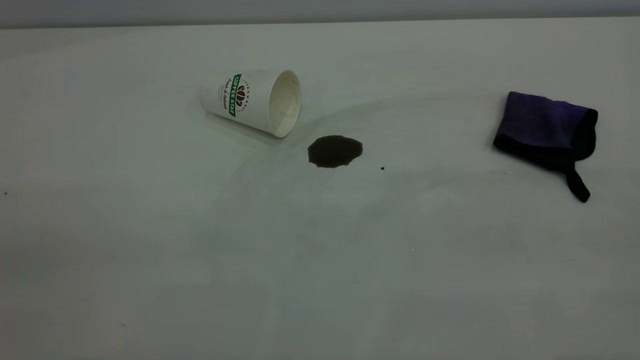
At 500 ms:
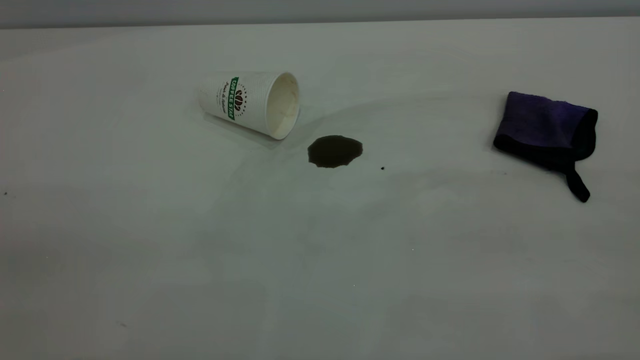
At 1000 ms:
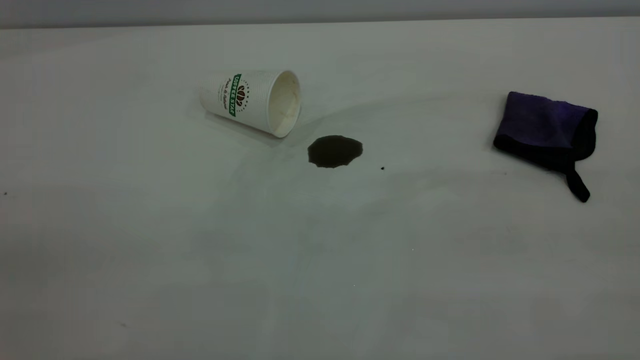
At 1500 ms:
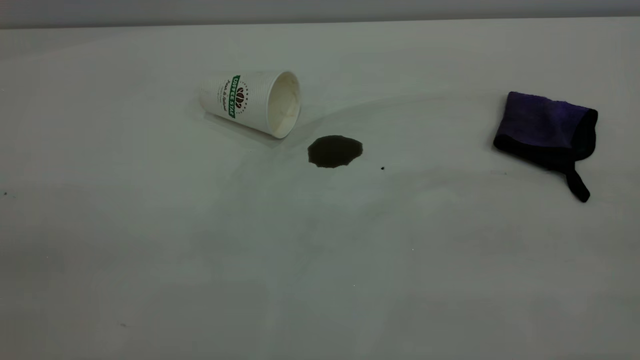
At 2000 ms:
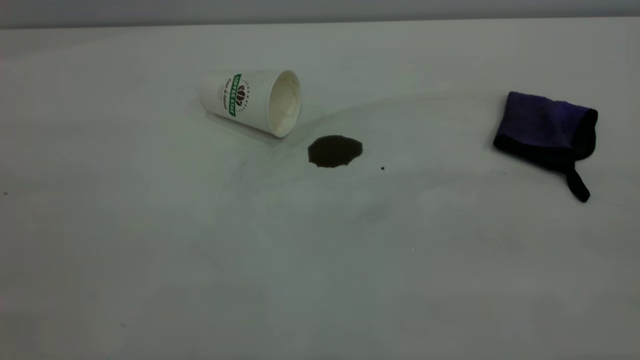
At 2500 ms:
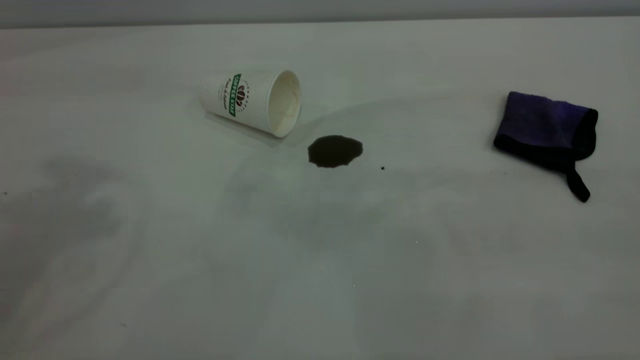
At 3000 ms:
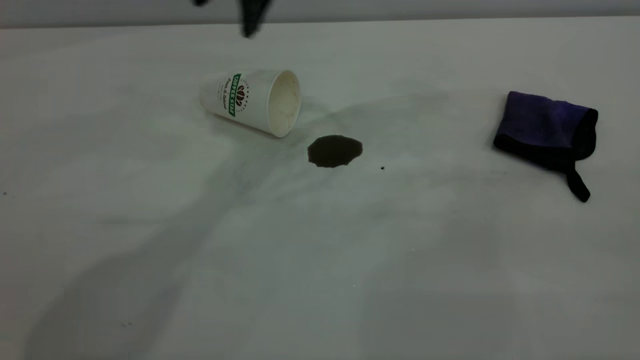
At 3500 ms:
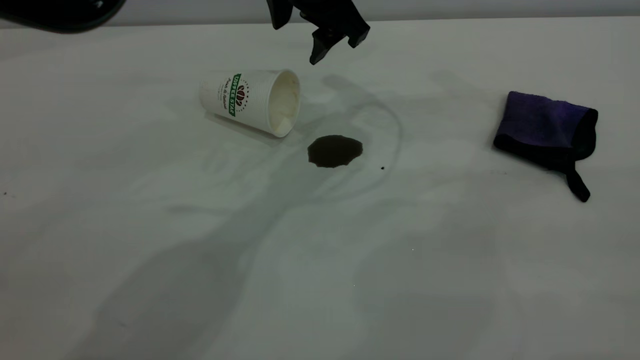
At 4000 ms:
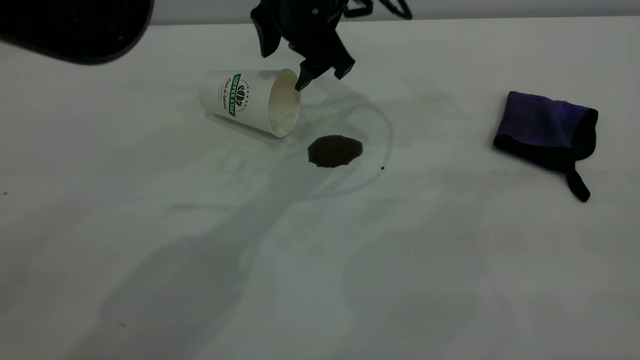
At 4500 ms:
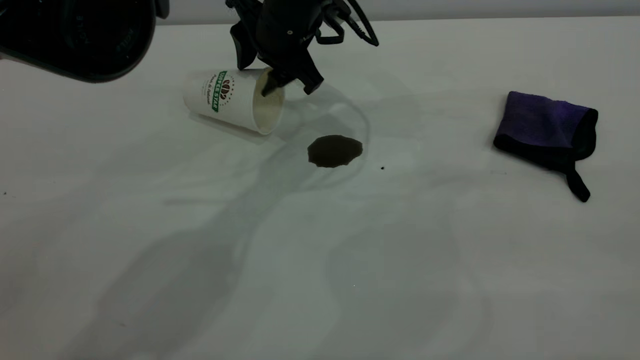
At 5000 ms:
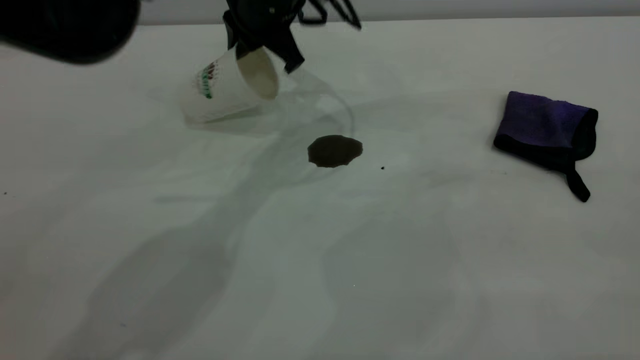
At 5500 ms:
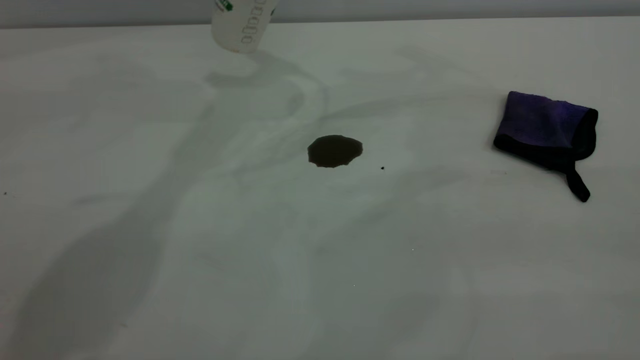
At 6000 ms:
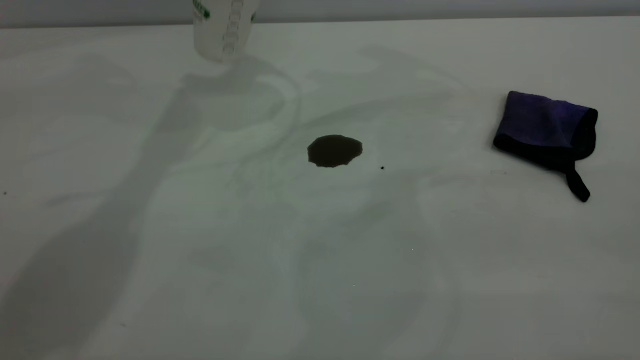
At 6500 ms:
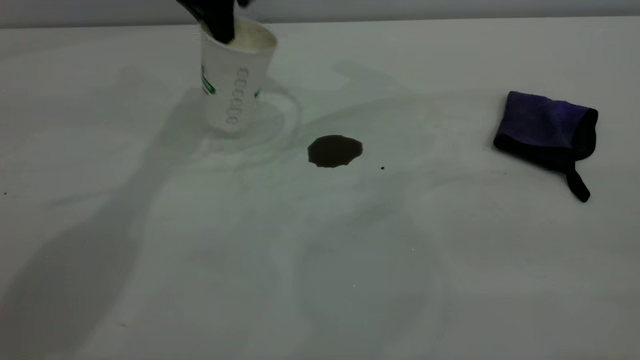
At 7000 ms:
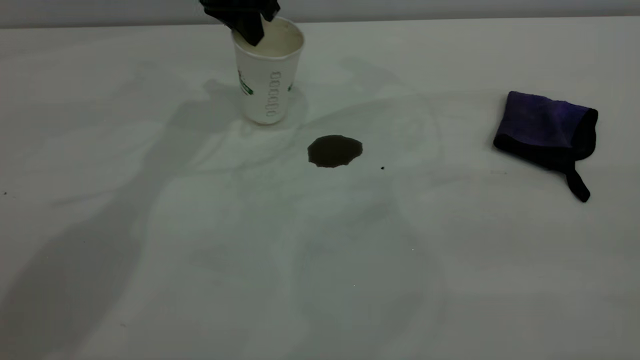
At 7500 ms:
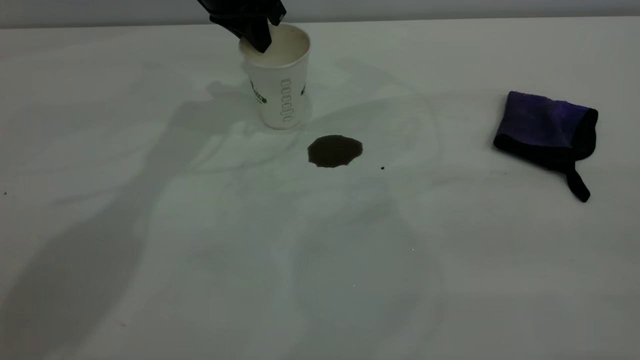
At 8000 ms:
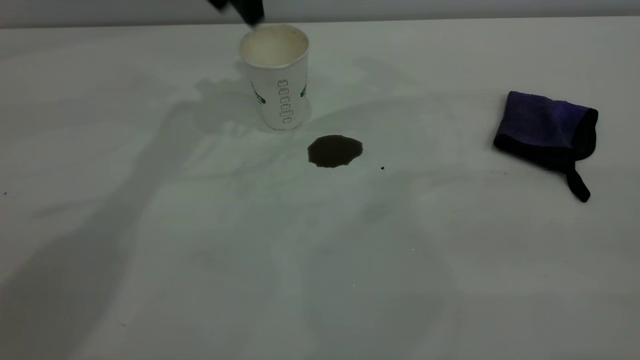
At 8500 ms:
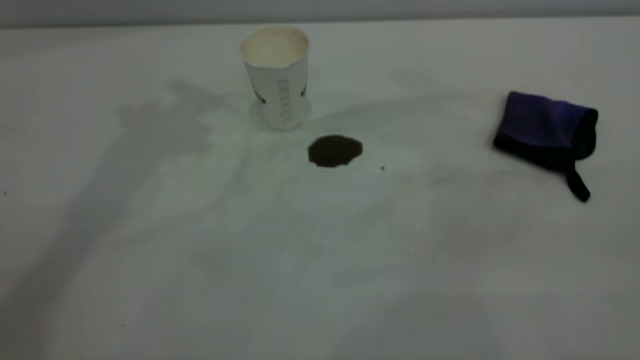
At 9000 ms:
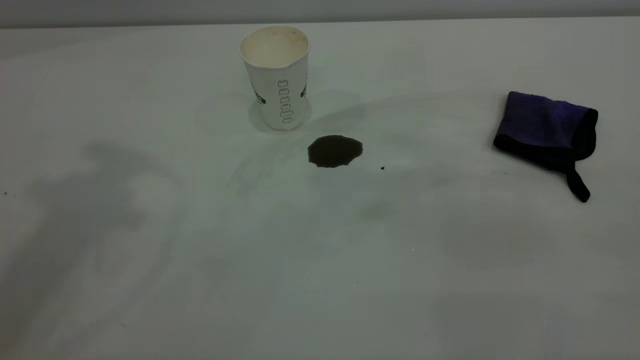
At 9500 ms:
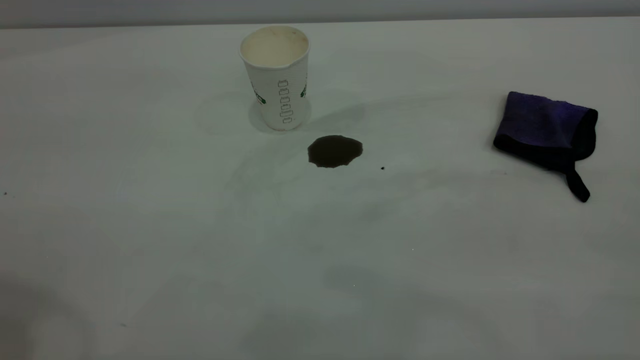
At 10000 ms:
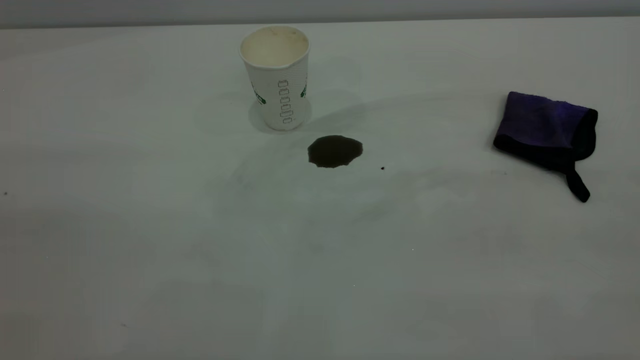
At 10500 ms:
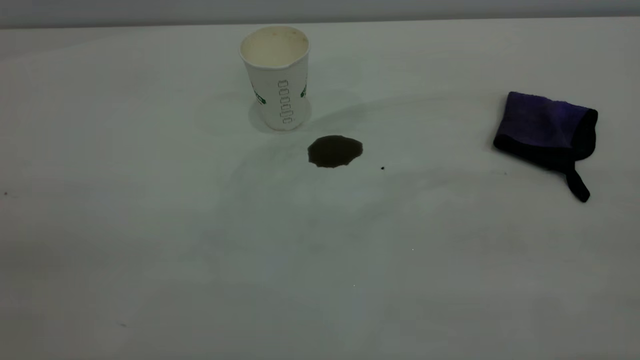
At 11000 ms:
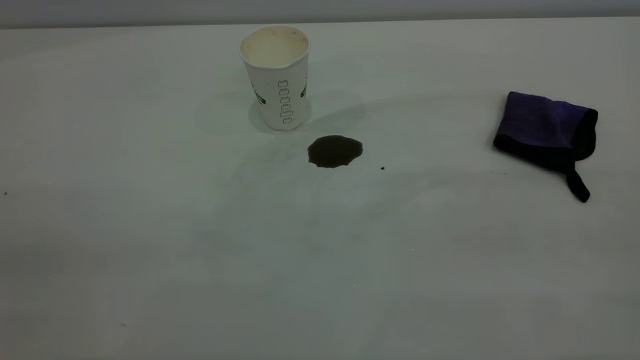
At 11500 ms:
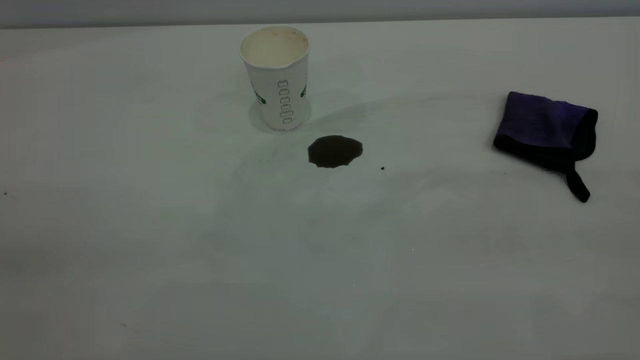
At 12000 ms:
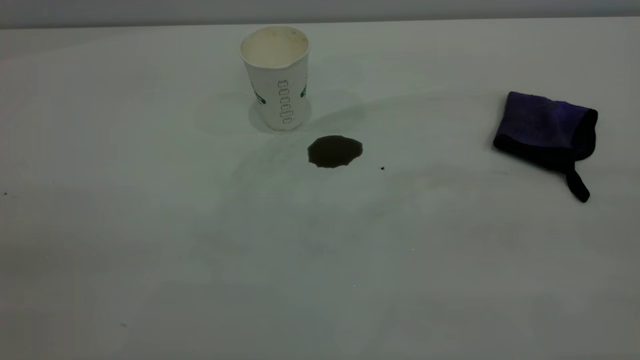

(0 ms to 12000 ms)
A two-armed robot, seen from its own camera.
Task of the whole recording: the left gripper pick up the fallen cup and place it upright, the right gripper grasp the purple rag and wipe the coffee stain on the table, the right gripper put the purple rag back in its original position.
Step, 0 ms - 7500 ms: Stand the paper cup upright.
2000 ms - 4000 ms: The left gripper is displaced forward, to the right and downward by roughly 50 cm.
4000 ms - 6000 ms: The left gripper goes approximately 20 cm upward and to the left, and closes.
6000 ms - 8000 ms: The left gripper goes downward and returns, approximately 10 cm each way, and opens its fingers.

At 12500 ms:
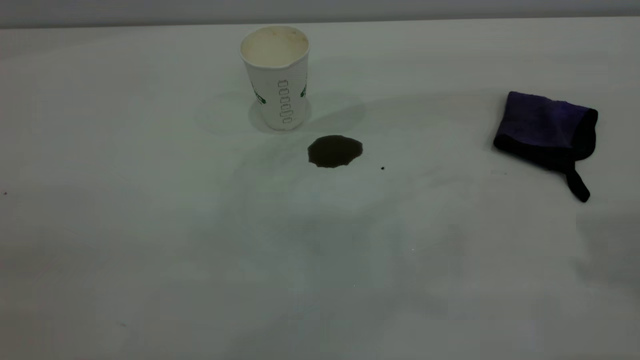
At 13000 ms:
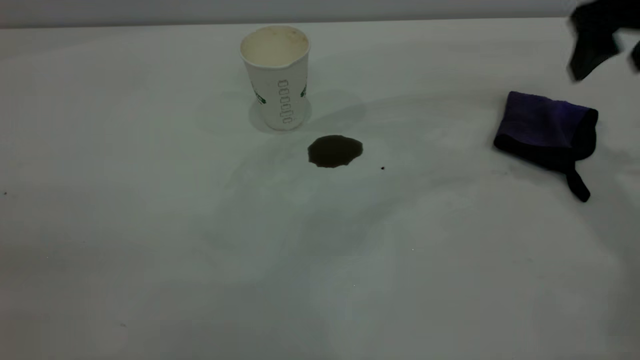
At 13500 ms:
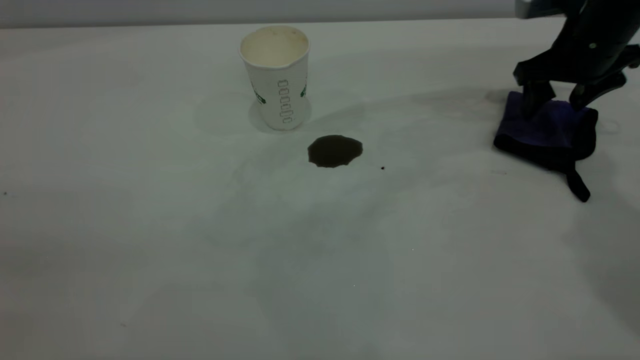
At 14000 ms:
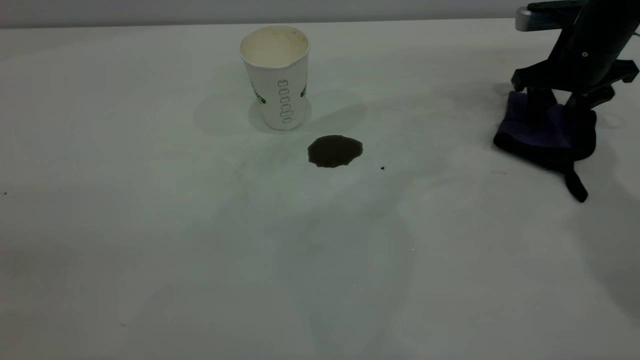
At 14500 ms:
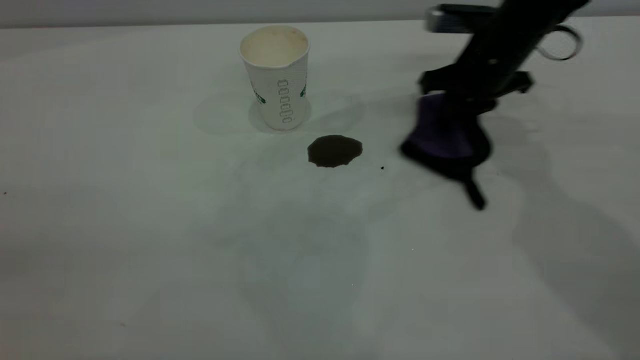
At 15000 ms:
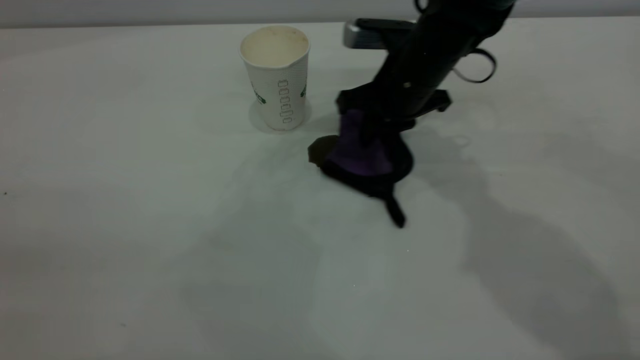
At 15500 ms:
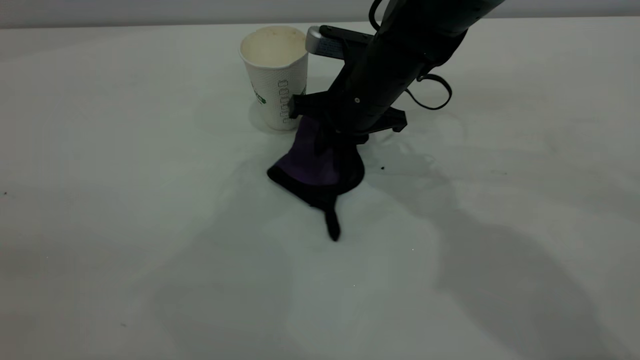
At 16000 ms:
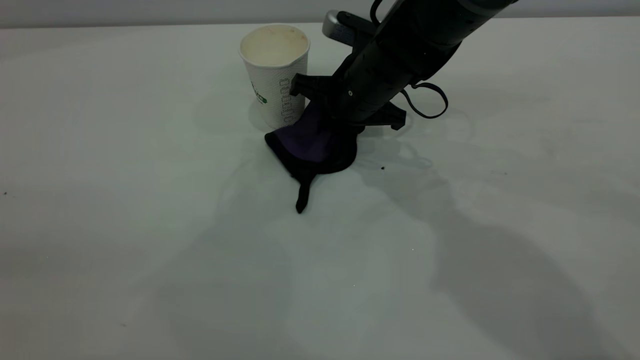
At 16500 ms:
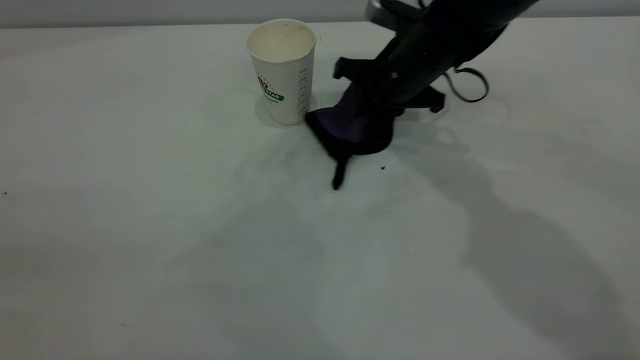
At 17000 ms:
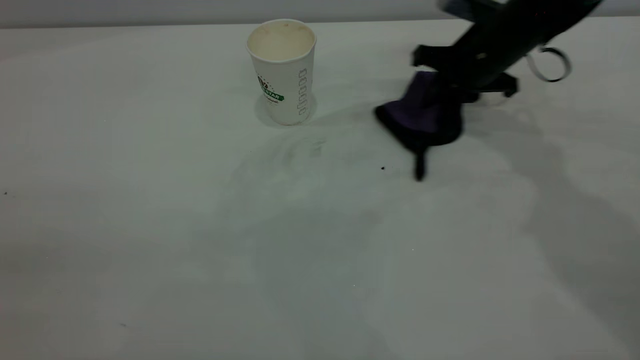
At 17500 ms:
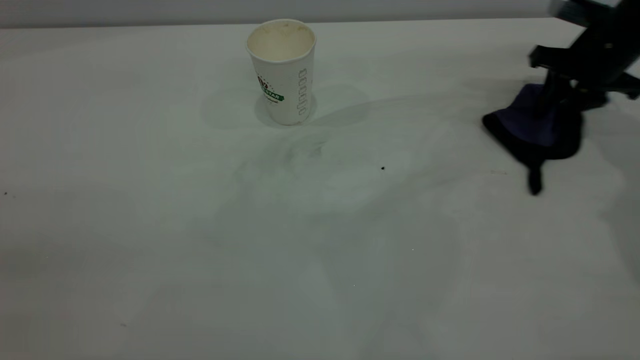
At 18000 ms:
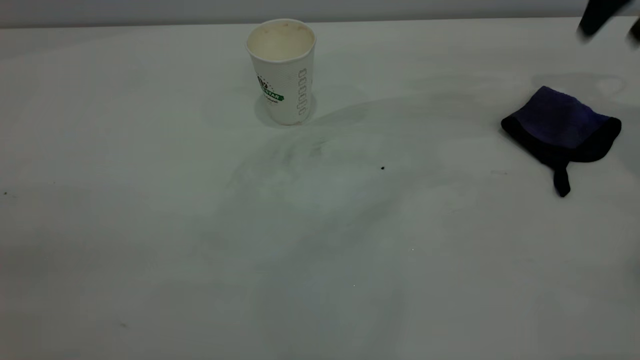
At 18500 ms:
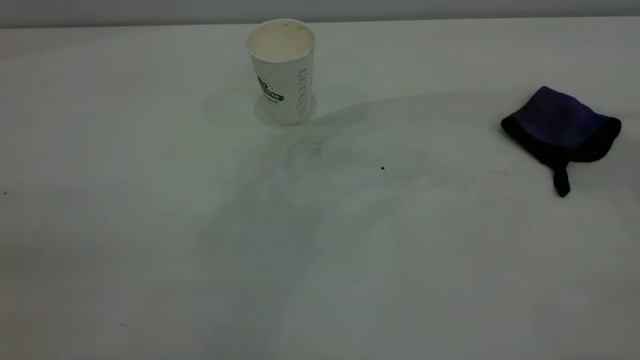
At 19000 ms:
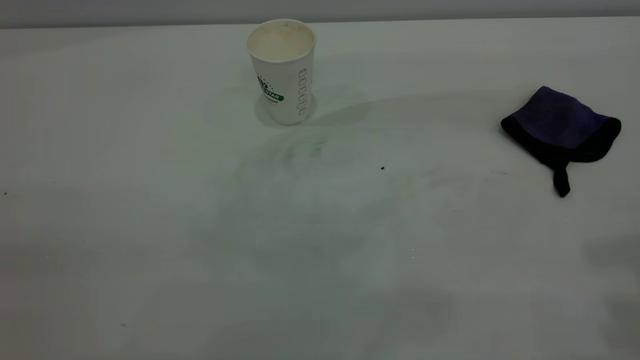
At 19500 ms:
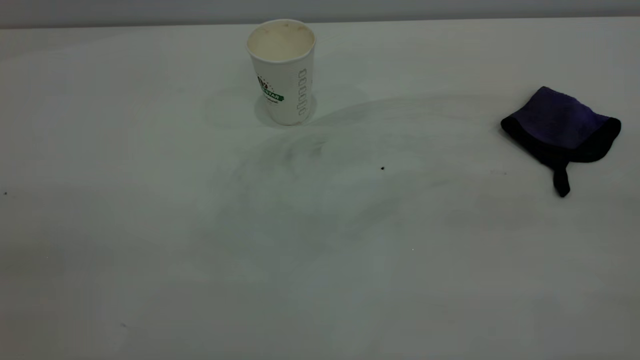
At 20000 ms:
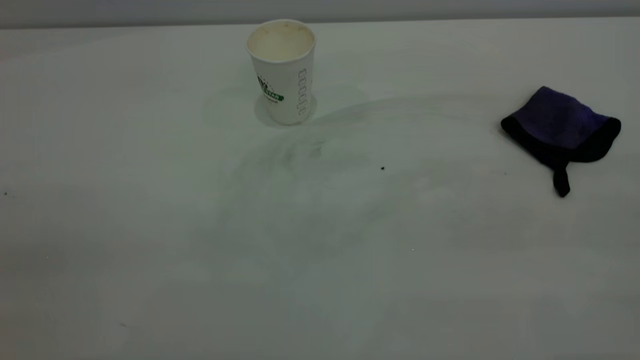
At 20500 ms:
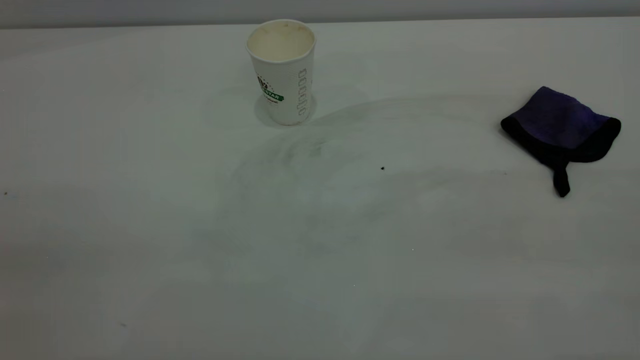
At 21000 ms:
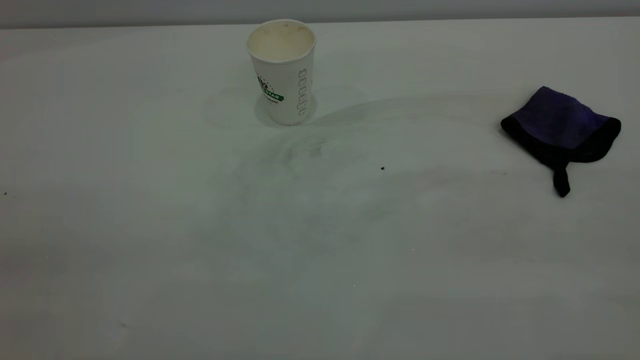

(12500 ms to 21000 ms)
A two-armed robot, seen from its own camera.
Task of the whole recording: the left gripper pick up the fallen cup and place it upright, the right gripper grasp the purple rag and wipe the coffee stain on the table, the right gripper put the purple rag back in its original position.
Step, 12500 ms - 17500 ms: Wipe the stains off the table with a rag.
12500 ms - 14500 ms: The right gripper goes some 35 cm downward, forward and to the left, and closes up.
14500 ms - 16500 ms: The right gripper heads to the left, covering some 5 cm.
16500 ms - 19000 ms: The right gripper goes approximately 50 cm upward, backward and to the right, and opens up.
